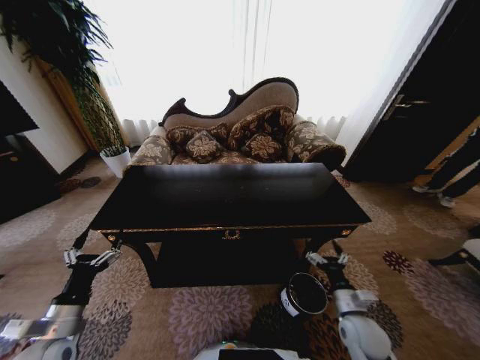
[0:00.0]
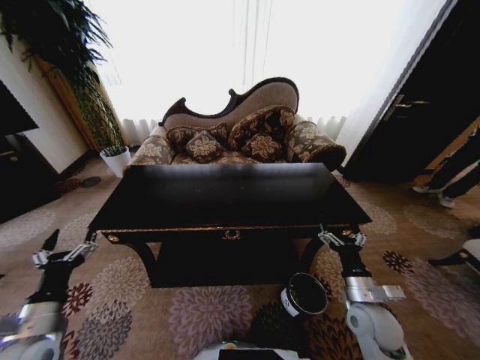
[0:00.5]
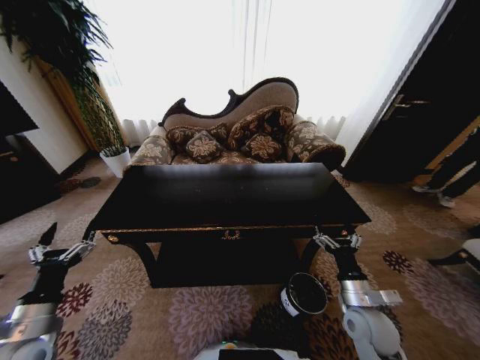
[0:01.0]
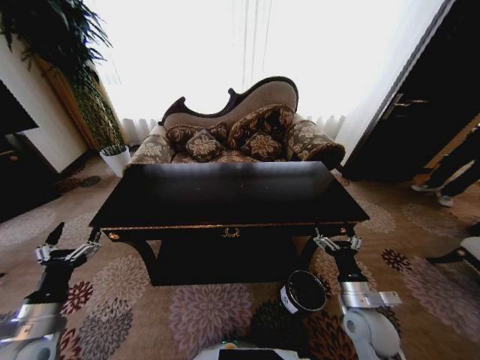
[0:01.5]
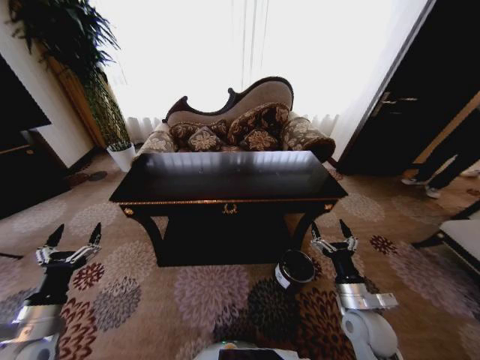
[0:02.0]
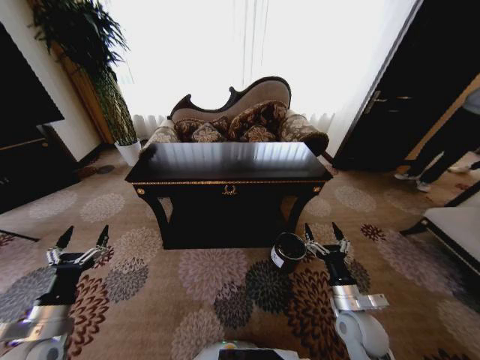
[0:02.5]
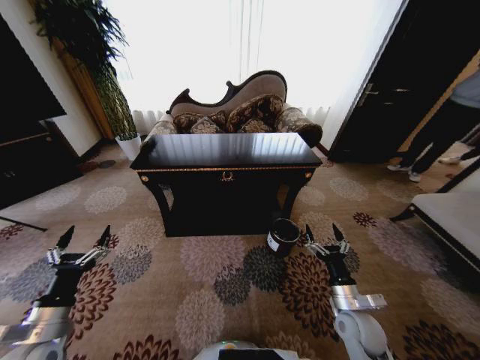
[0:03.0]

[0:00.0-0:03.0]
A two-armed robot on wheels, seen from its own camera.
Task of the whole recording: Move to the front of the table and place the trash on the table into the trash bin.
0:00.0 to 0:01.5: There are only small adjustments of the grippers.

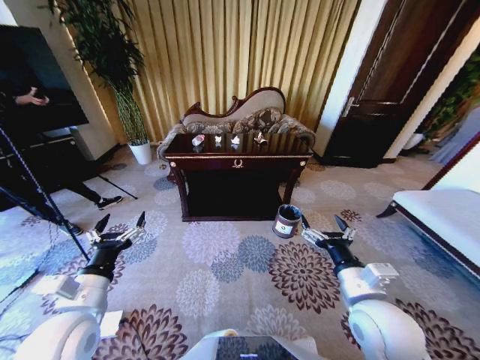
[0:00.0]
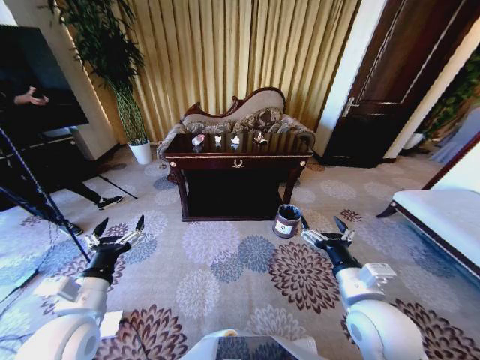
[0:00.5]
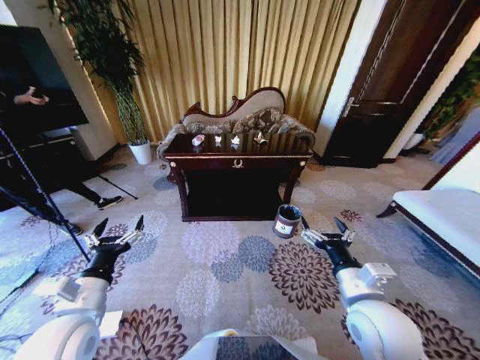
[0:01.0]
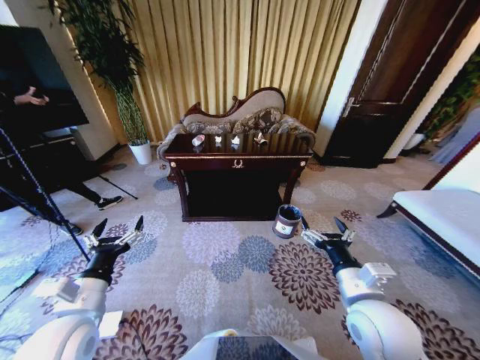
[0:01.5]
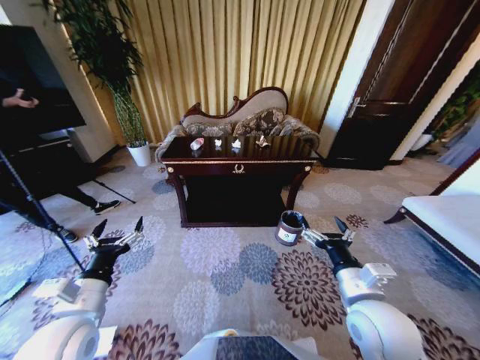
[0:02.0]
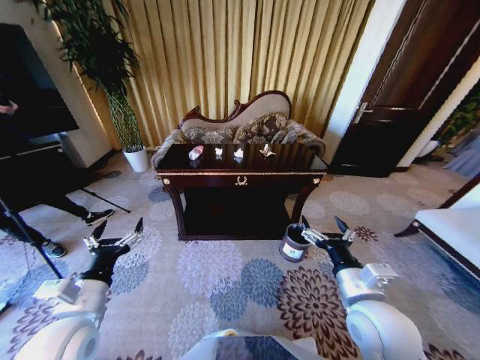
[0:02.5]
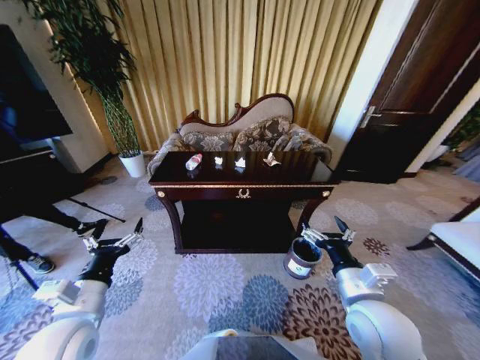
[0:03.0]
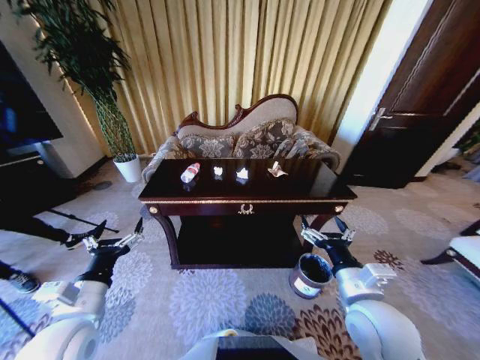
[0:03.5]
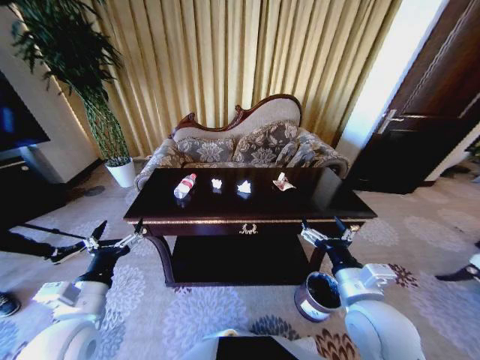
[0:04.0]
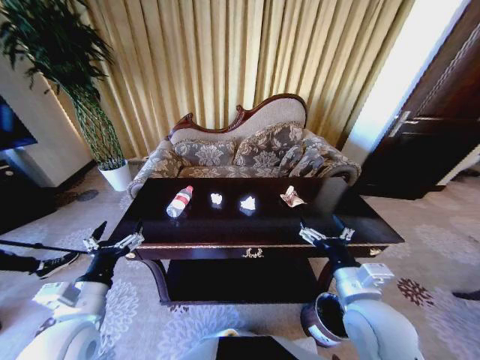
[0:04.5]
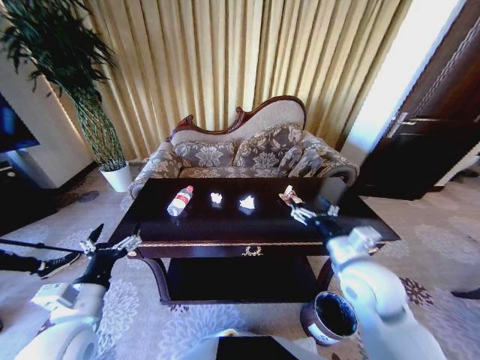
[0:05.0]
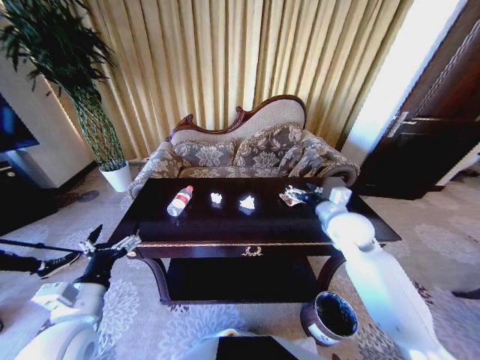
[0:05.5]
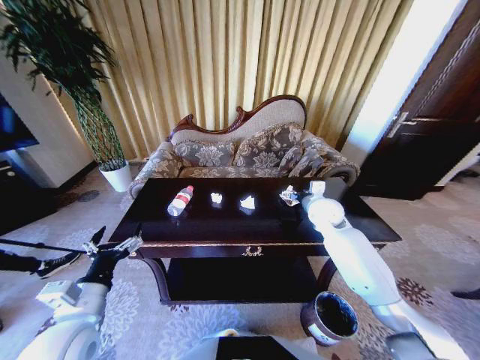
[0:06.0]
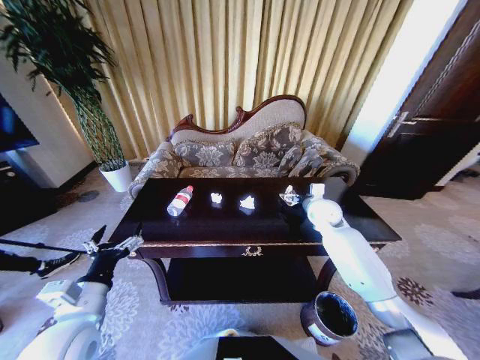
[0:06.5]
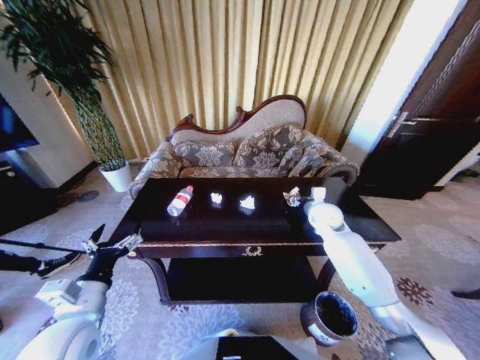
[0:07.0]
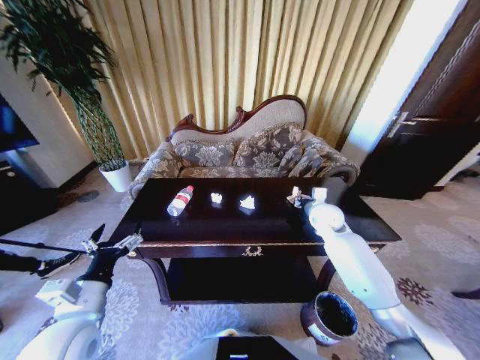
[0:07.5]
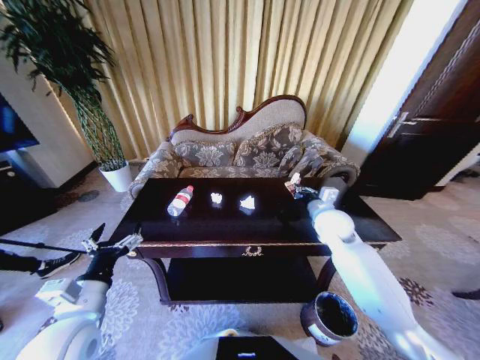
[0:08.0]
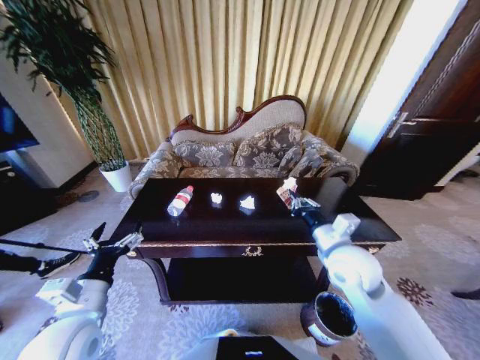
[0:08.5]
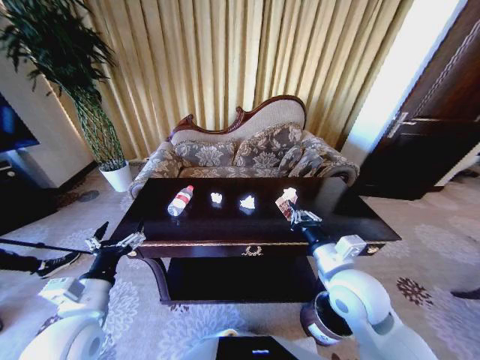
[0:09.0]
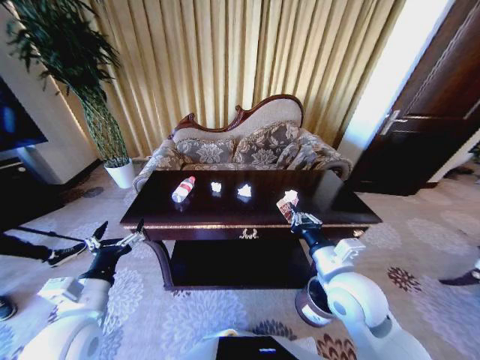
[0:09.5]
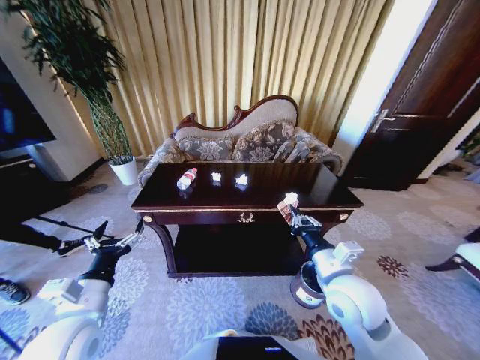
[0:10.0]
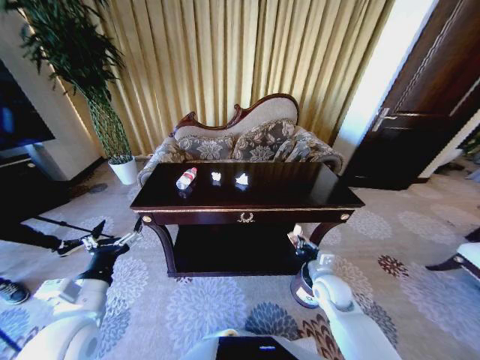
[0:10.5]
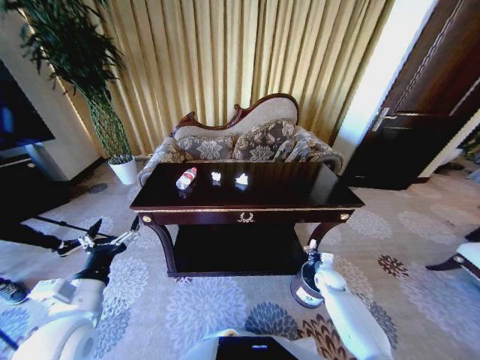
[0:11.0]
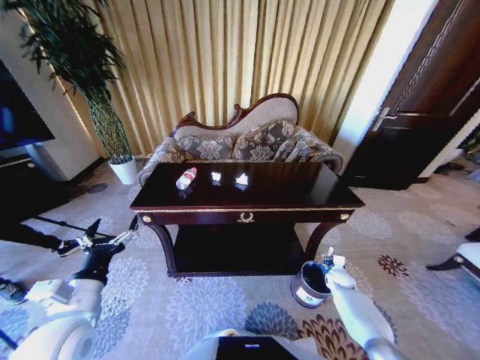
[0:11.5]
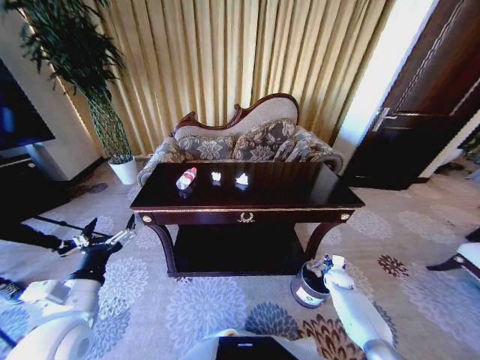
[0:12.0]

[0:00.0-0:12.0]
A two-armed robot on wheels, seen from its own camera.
Task of the whole recording: Move to the front of the table and place the trash on the table into the trash bin.
0:04.0 to 0:06.0: The right gripper heads forward, covering some 30 cm.
0:06.0 to 0:08.0: The right gripper closes.
0:08.0 to 0:10.0: The right gripper travels backward by approximately 20 cm.
0:10.0 to 0:12.0: The right gripper moves downward, to the right and forward, some 40 cm, and opens its fingers.

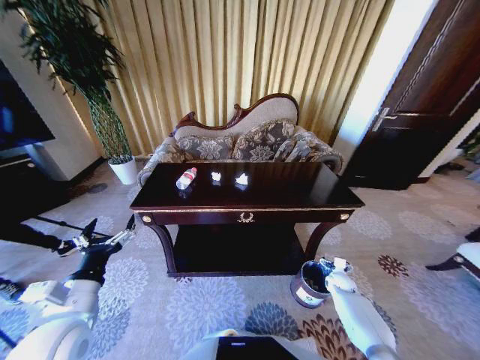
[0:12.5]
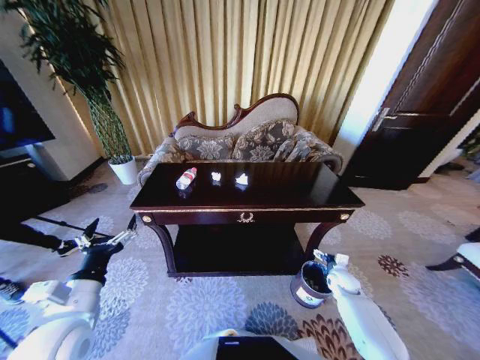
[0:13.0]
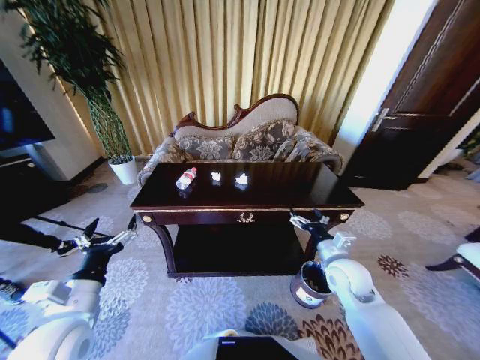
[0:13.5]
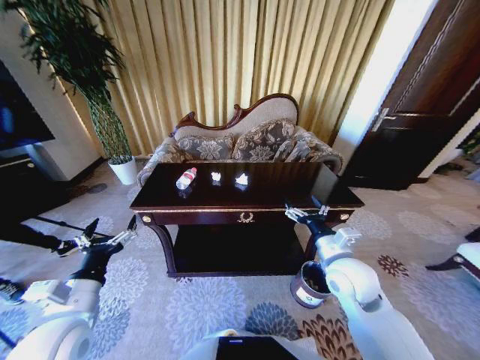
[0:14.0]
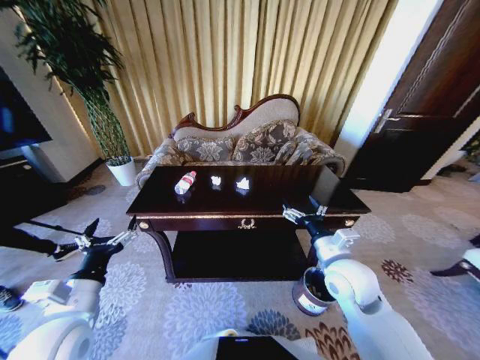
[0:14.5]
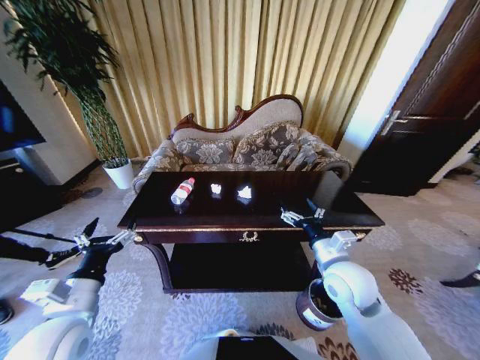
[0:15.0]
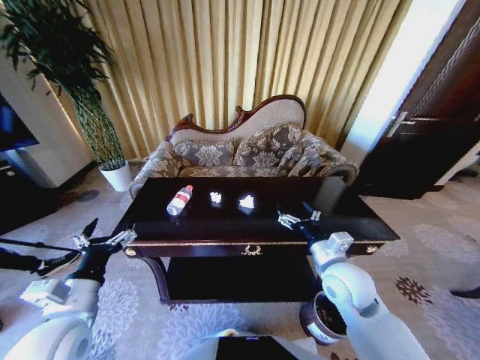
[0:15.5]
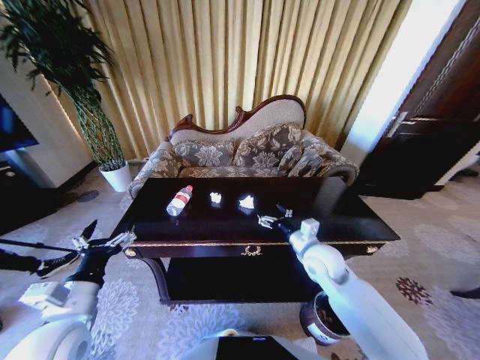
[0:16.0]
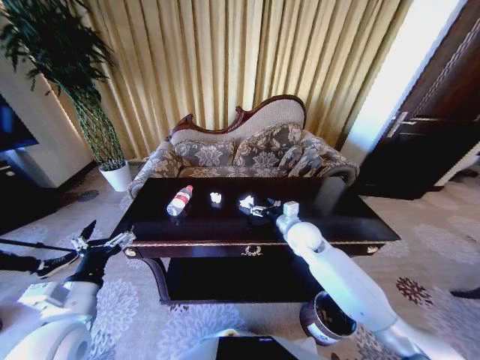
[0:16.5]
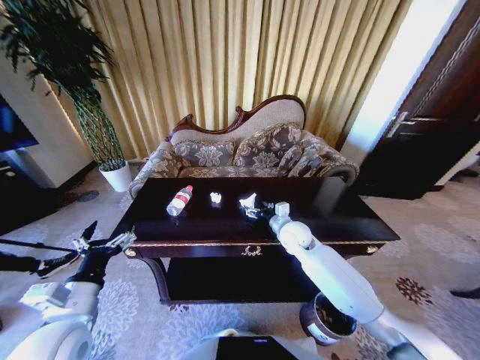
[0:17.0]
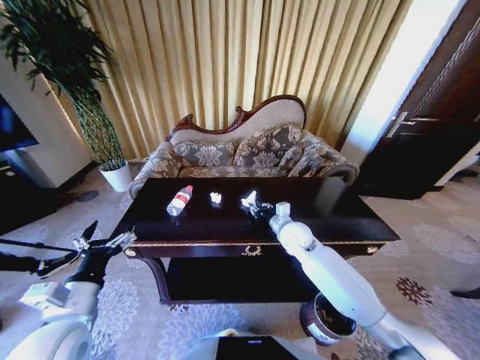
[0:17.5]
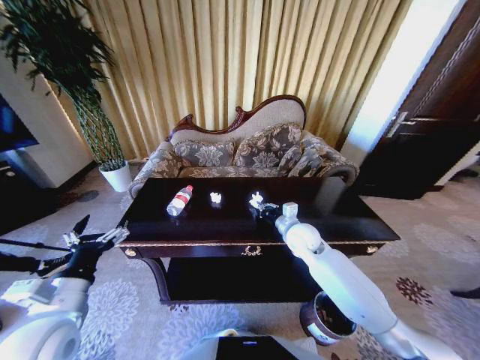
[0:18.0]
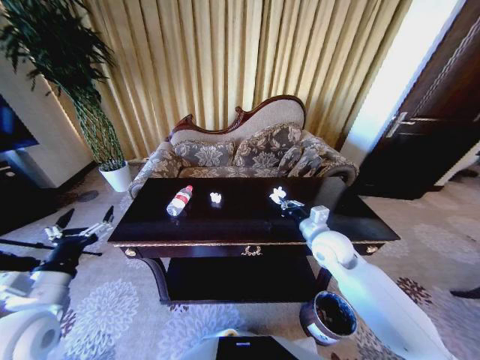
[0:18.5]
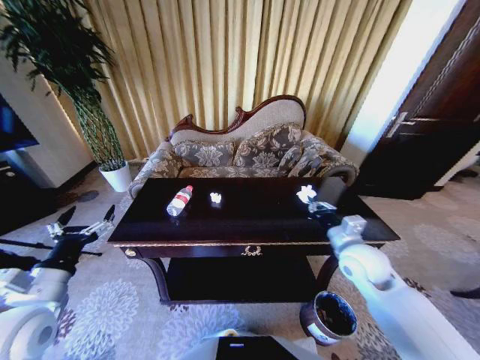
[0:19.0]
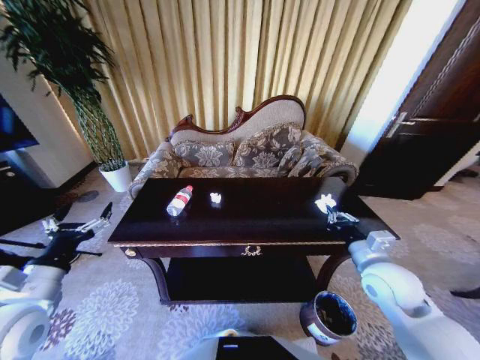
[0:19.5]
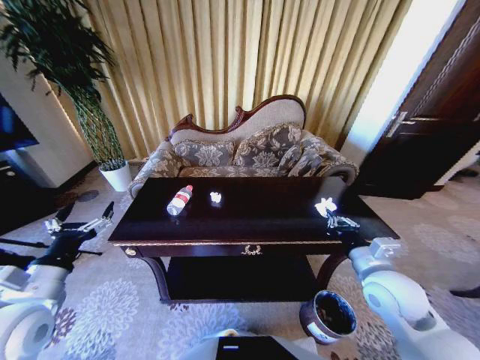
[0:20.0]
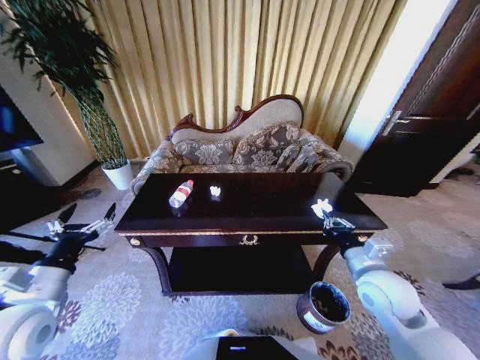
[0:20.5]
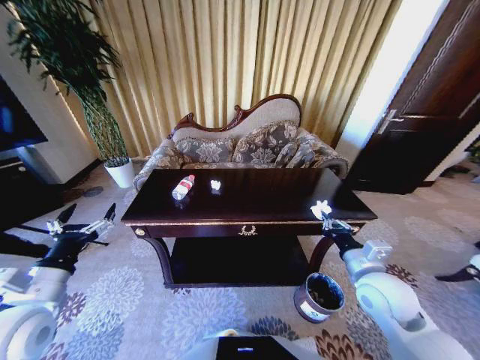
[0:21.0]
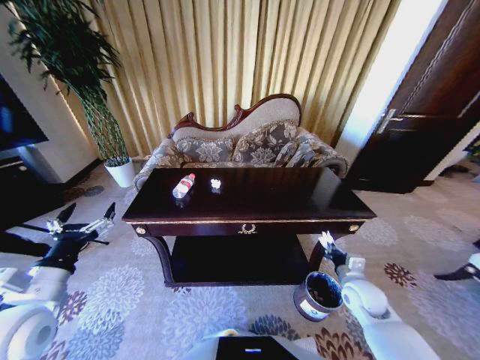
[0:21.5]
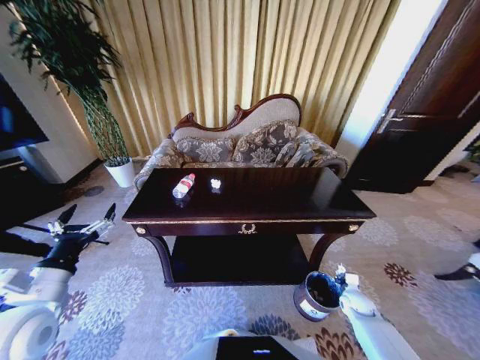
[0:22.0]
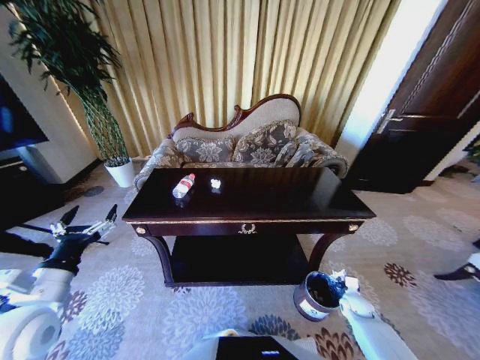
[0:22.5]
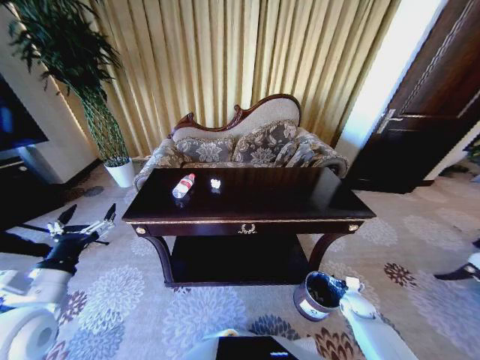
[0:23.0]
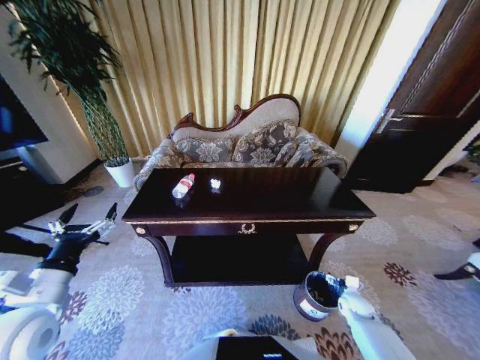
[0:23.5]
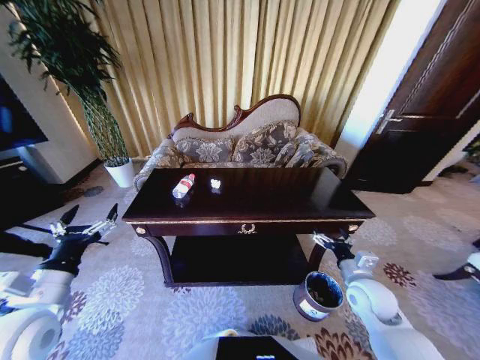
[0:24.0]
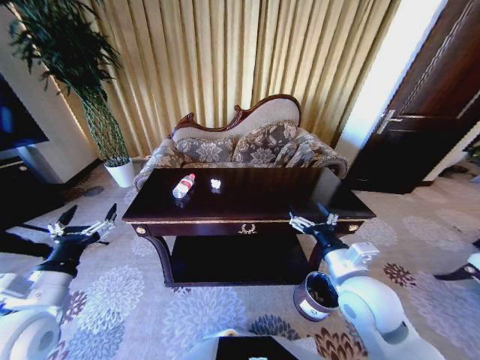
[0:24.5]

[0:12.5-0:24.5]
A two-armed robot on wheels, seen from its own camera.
Task of the whole recording: Move to the front of the table and place the trash on the table into the trash bin.
0:12.5 to 0:14.5: The right gripper moves upward and to the left, approximately 35 cm.
0:14.5 to 0:16.5: The right gripper goes approximately 15 cm forward.
0:16.5 to 0:18.5: The right gripper shifts about 5 cm backward, and closes up; the left gripper goes roughly 5 cm to the left.
0:18.5 to 0:20.5: The right gripper is displaced backward and to the right by roughly 15 cm.
0:20.5 to 0:22.5: The right gripper goes about 35 cm downward and to the right.
0:22.5 to 0:24.5: The right gripper travels upward and to the left by roughly 40 cm, and opens its fingers.
